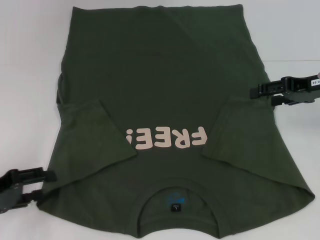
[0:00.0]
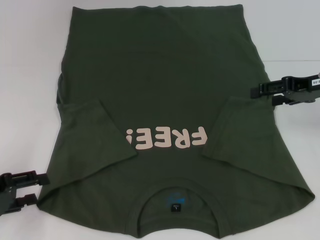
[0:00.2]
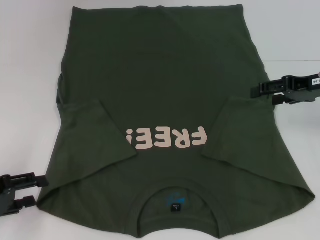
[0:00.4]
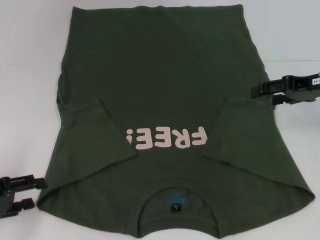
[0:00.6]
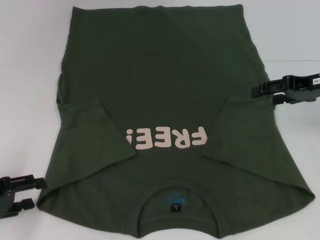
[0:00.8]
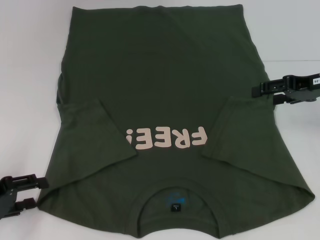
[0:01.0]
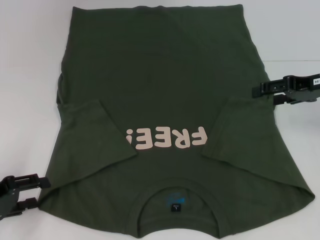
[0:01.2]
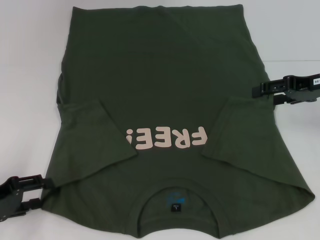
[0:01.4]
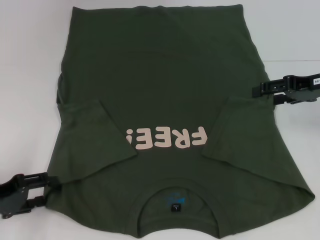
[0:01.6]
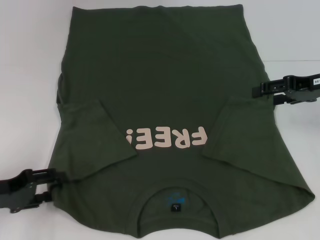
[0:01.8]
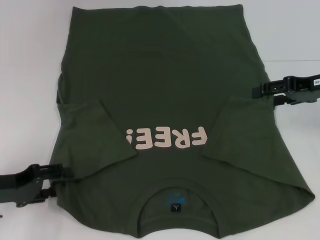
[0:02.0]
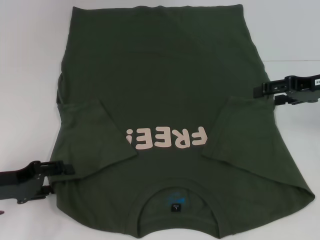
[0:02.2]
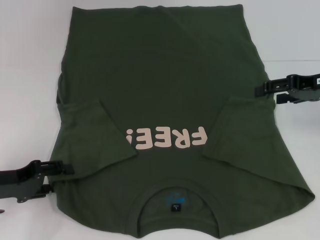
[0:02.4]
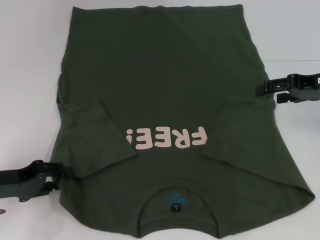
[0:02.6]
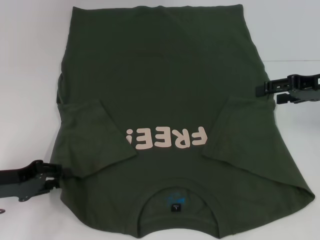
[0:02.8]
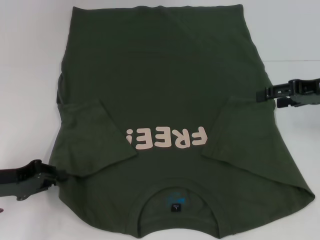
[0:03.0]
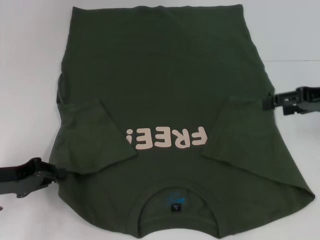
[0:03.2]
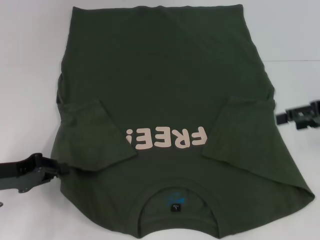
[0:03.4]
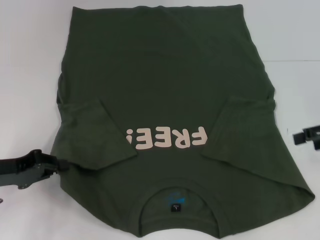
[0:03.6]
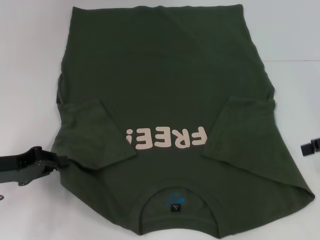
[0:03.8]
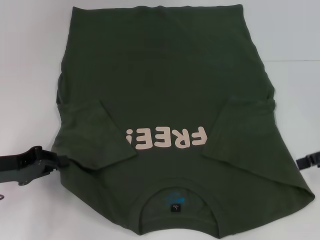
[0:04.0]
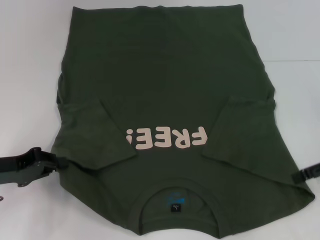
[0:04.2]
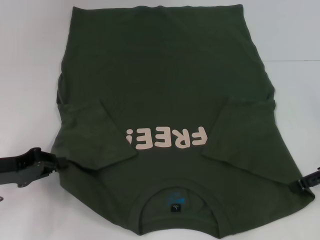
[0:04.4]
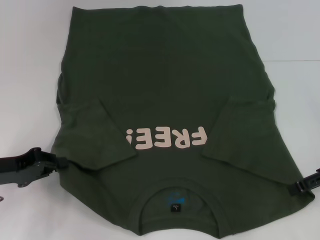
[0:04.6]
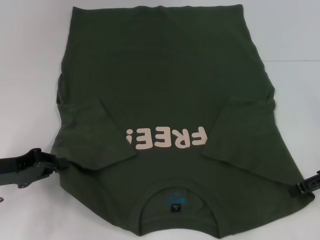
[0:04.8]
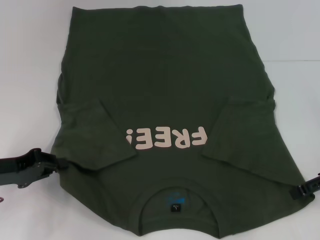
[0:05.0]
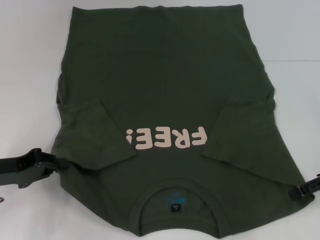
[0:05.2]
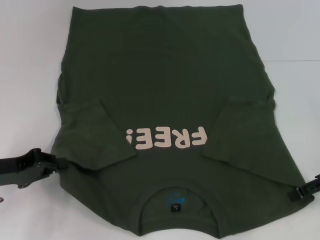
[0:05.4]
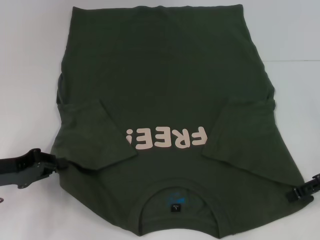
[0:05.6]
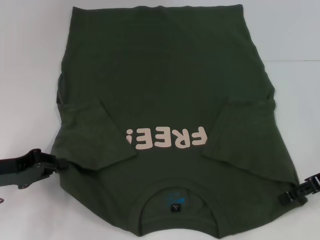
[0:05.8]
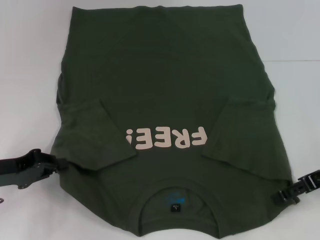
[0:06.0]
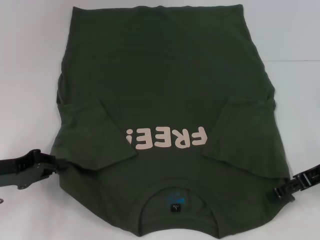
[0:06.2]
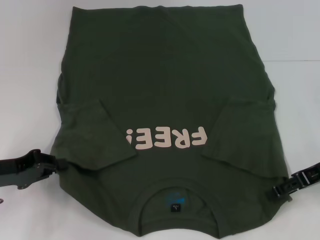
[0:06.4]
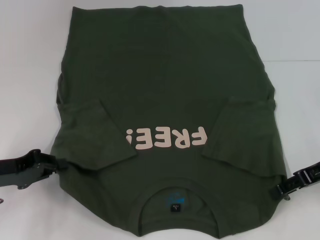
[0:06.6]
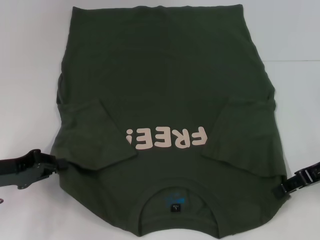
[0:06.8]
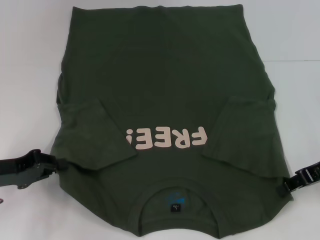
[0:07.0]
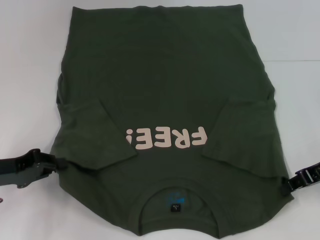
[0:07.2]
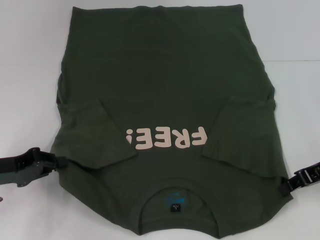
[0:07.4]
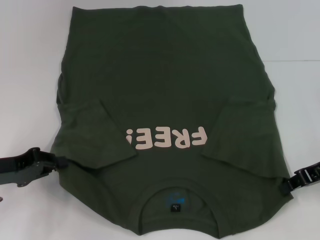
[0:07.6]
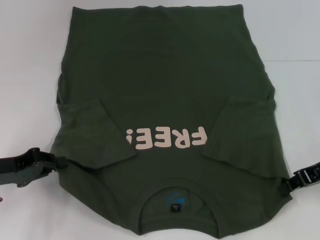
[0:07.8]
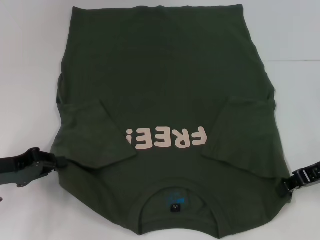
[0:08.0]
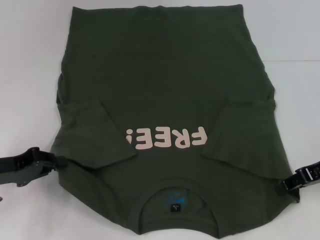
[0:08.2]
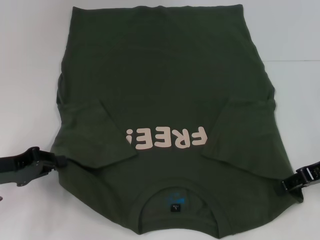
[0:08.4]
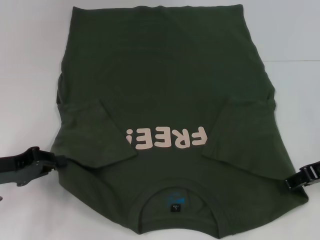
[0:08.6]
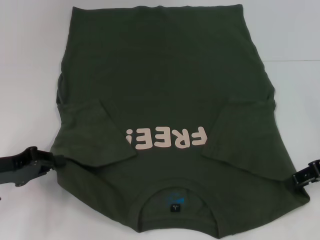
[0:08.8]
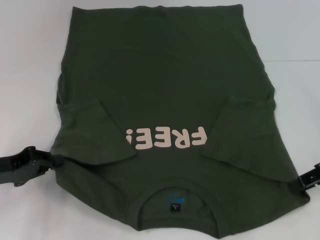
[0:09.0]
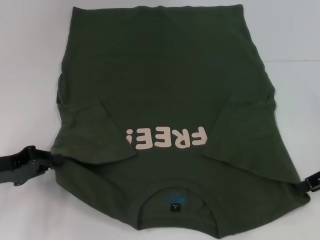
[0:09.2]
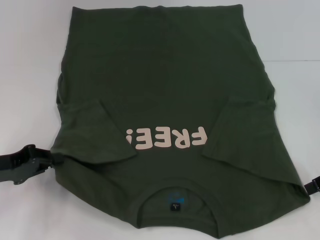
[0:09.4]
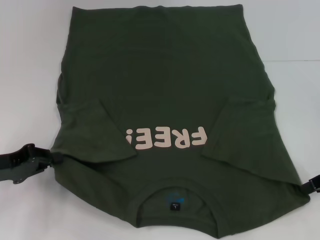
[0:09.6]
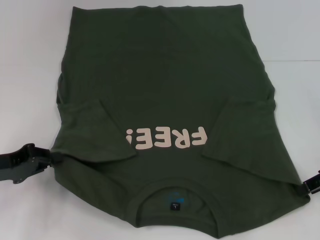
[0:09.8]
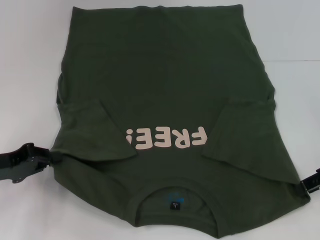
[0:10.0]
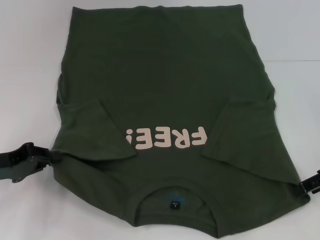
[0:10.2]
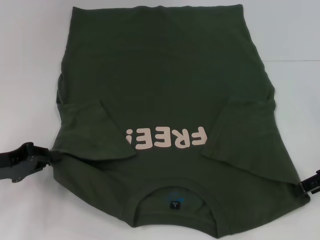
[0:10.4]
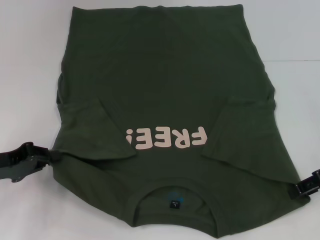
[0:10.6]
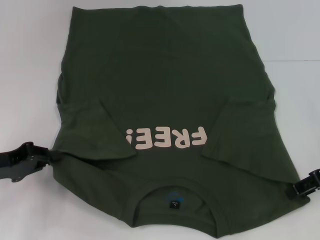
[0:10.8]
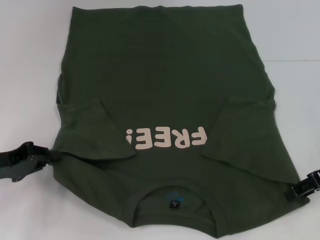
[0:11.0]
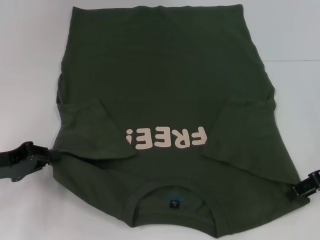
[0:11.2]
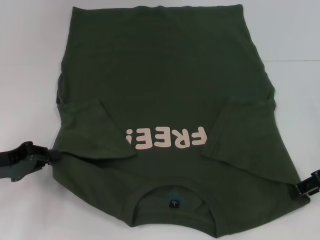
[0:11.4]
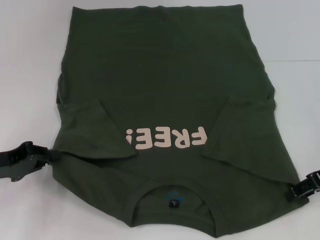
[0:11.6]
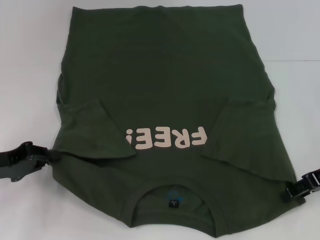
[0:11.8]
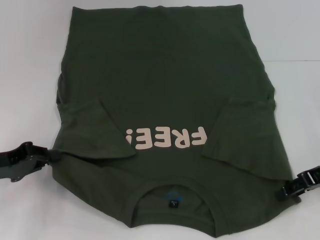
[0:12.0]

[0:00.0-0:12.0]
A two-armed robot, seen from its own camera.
Step, 0:00.0 to 0:03.0: Grab the bottom left corner with your left hand.
0:00.0 to 0:01.6: The grippers make only small movements.
0:01.6 to 0:03.0: The left gripper closes up.
0:03.0 to 0:04.4: The right gripper travels backward by about 5 cm.
0:04.4 to 0:06.0: The grippers stay close to where they were, moving slightly.
0:06.0 to 0:07.6: The right gripper closes up.
0:07.6 to 0:09.0: The right gripper opens.
0:09.0 to 0:12.0: There are only small adjustments of the grippers.

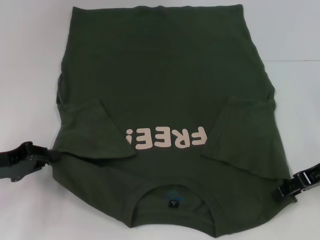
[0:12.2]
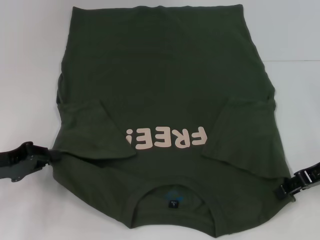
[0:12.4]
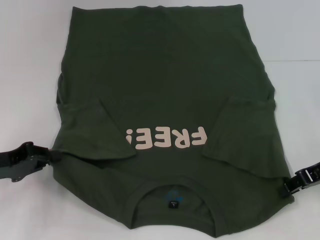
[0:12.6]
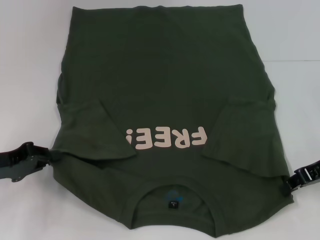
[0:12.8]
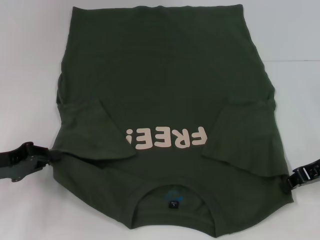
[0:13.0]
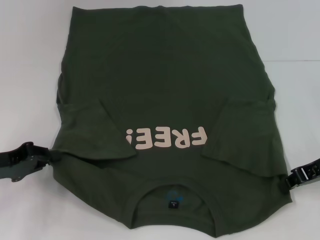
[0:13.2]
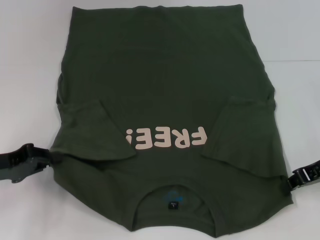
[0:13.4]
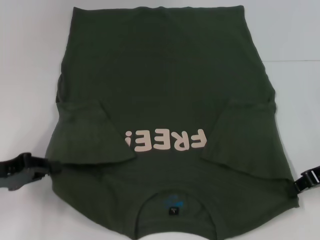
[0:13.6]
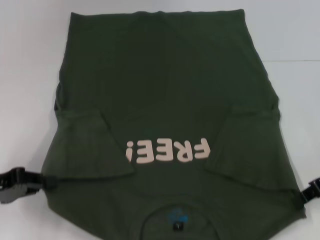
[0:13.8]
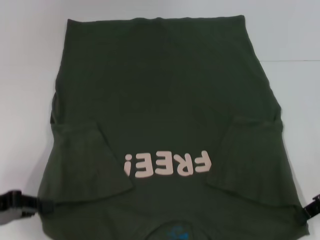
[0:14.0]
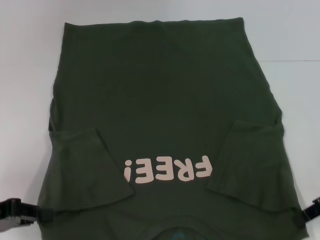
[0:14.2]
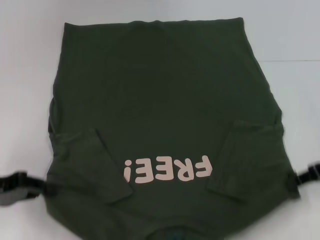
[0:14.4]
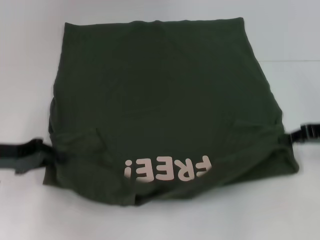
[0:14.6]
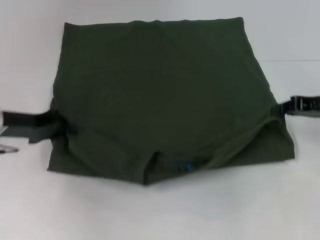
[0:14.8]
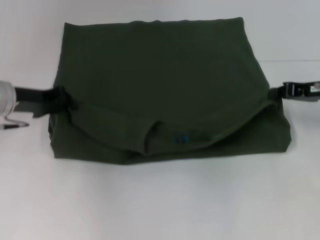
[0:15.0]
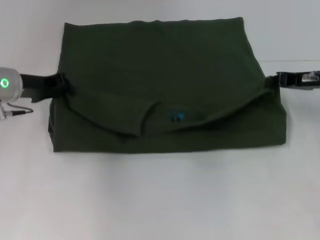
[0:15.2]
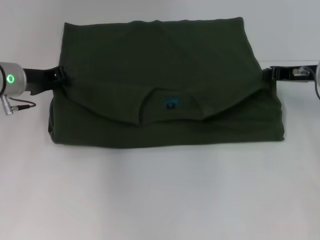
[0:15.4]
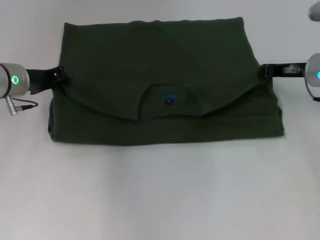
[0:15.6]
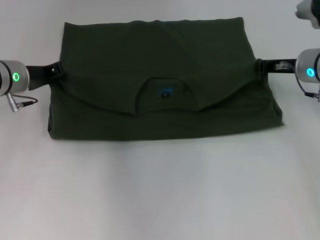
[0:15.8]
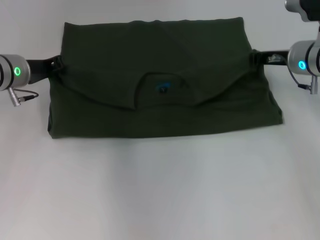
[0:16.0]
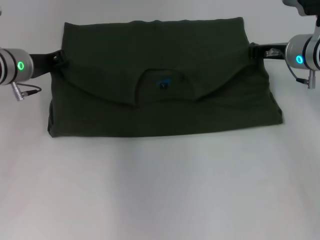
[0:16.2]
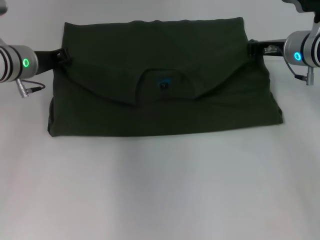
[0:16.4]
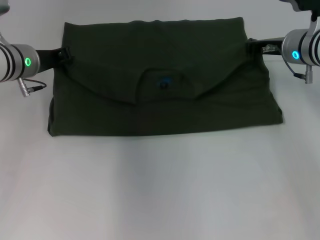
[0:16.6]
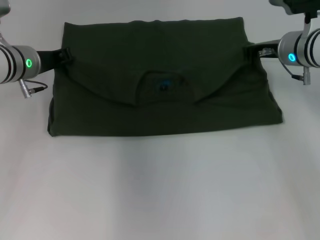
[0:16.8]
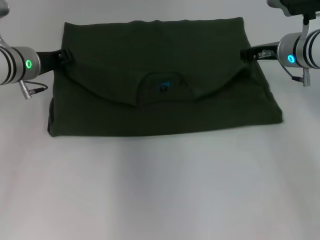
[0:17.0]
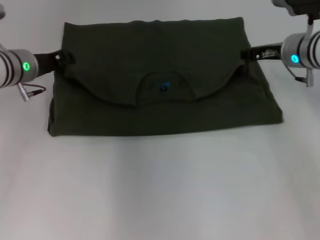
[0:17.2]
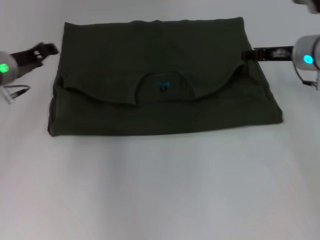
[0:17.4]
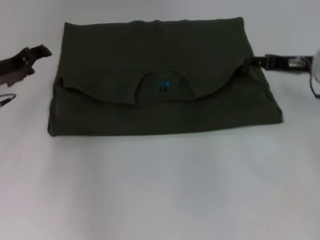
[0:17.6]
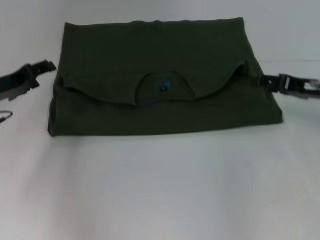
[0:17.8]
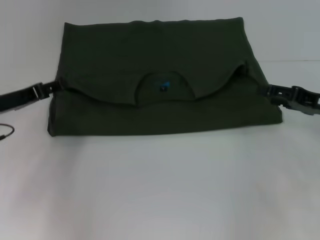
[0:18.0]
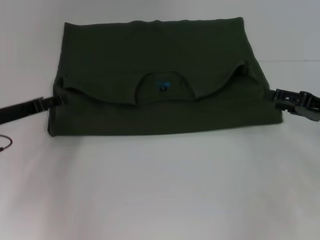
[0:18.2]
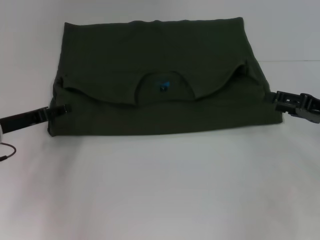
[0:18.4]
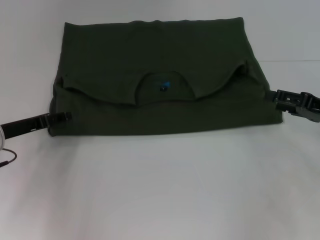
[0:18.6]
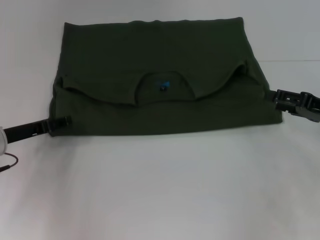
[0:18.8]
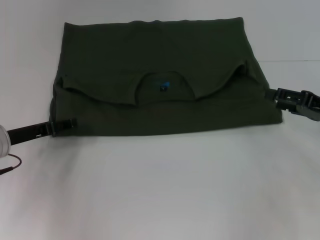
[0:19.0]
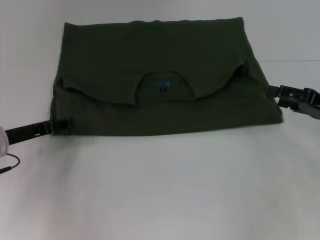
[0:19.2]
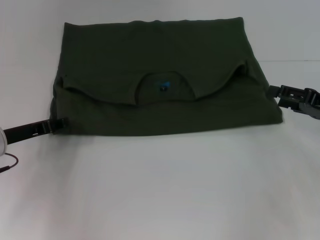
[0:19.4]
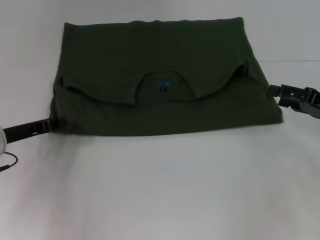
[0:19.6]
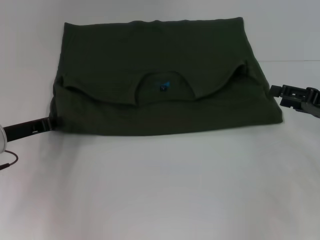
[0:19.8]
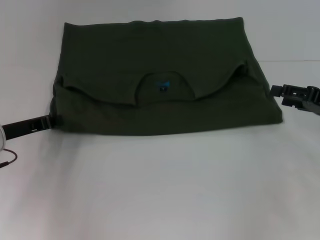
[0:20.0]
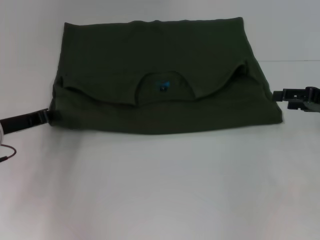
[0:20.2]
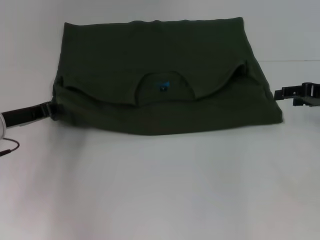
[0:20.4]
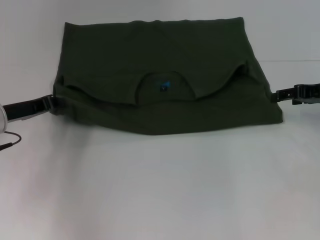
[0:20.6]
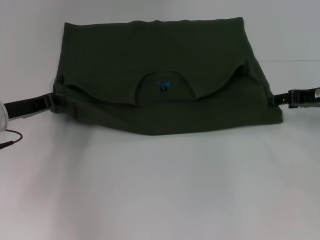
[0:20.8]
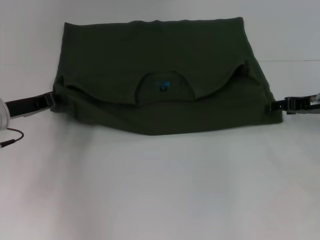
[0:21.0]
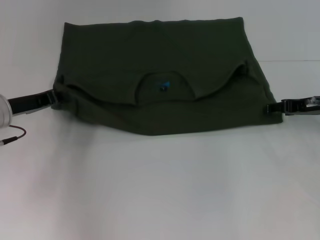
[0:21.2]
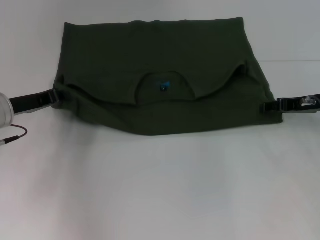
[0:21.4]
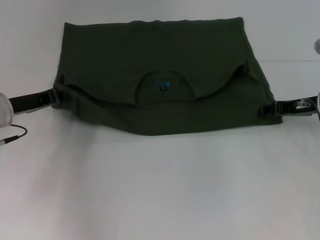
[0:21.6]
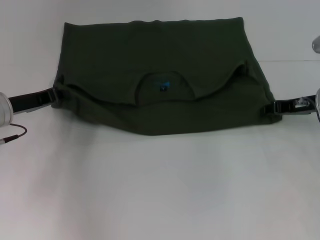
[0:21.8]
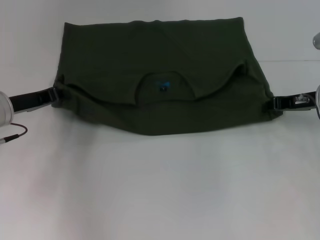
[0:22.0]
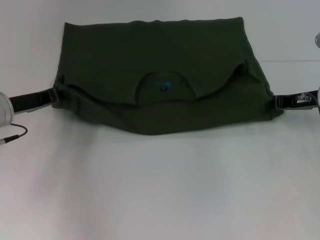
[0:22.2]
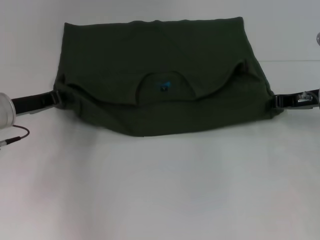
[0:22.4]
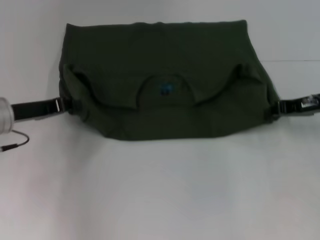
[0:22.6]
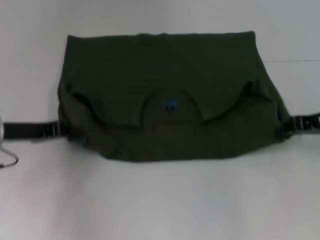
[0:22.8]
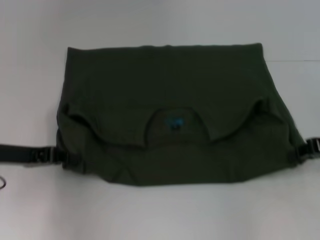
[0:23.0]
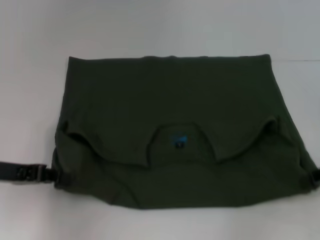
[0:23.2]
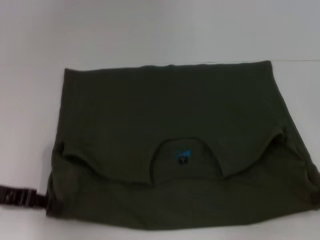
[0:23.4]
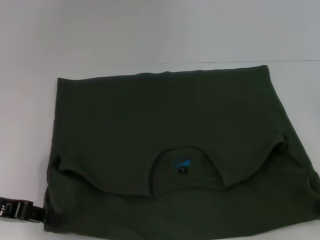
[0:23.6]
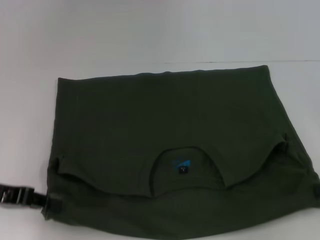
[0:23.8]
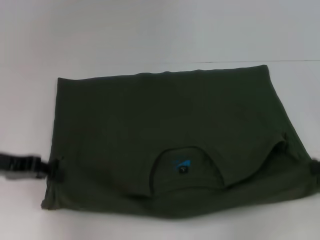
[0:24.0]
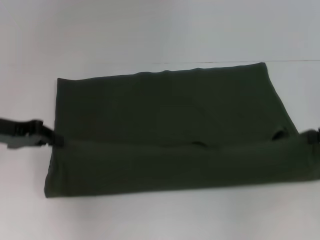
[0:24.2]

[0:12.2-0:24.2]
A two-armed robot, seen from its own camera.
Step, 0:13.4 to 0:17.4: Fold the clothes with your left hand.
Step, 0:13.4 to 0:17.4: Fold the clothes with your right hand.
Step, 0:17.6 to 0:23.4: Pull the clothes with your left hand.
Step, 0:17.6 to 0:23.4: Pull the clothes with your right hand.
0:12.2 to 0:13.8: The right gripper closes its fingers.
0:13.8 to 0:15.2: The left gripper moves forward, roughly 15 cm, while the right gripper is displaced forward by some 10 cm.
0:15.2 to 0:16.6: The right gripper travels to the left and forward by some 10 cm.
0:16.6 to 0:18.2: The right gripper goes approximately 15 cm backward and to the right, and opens its fingers. Meanwhile the left gripper shifts some 10 cm backward and to the left, and opens its fingers.
0:18.2 to 0:19.8: The left gripper closes its fingers.
0:19.8 to 0:21.2: The right gripper moves forward, roughly 5 cm.
0:21.2 to 0:22.6: The right gripper closes its fingers.
0:22.6 to 0:24.2: The right gripper shifts about 10 cm to the right and backward, while the left gripper travels backward and back again, approximately 10 cm each way.
